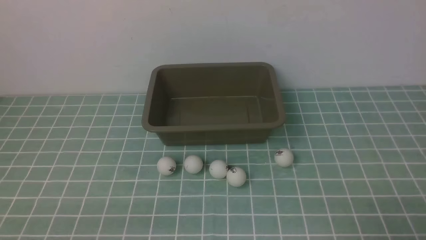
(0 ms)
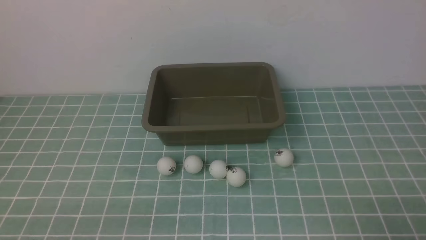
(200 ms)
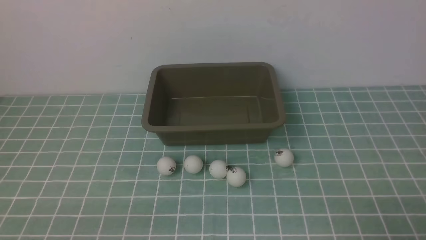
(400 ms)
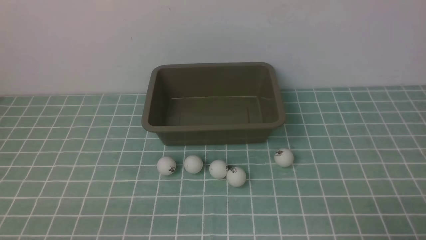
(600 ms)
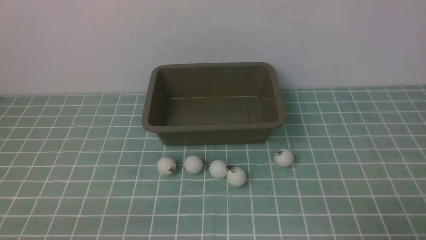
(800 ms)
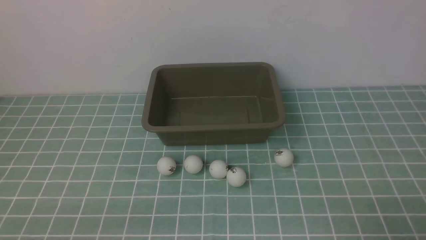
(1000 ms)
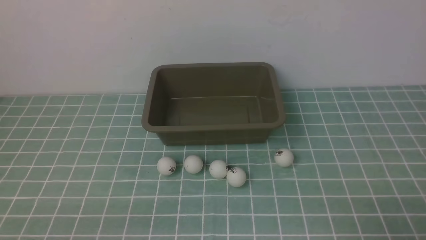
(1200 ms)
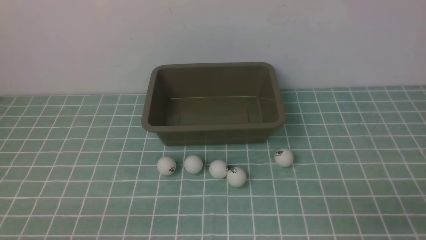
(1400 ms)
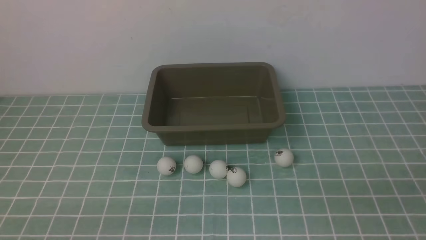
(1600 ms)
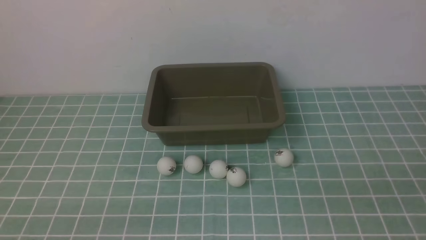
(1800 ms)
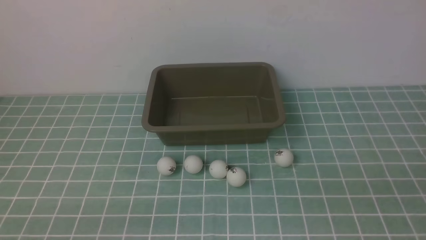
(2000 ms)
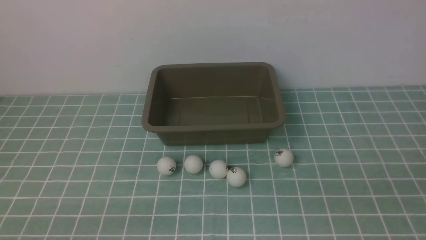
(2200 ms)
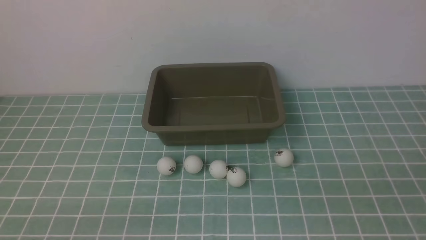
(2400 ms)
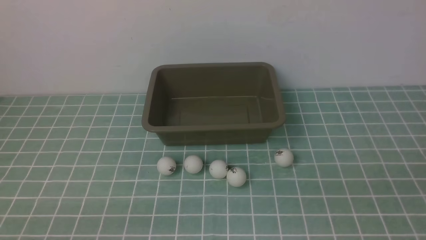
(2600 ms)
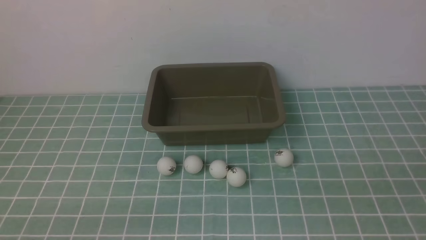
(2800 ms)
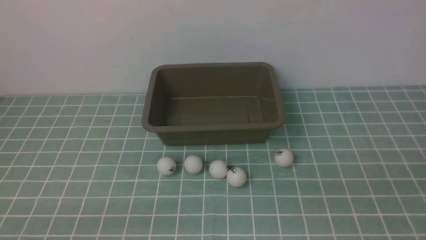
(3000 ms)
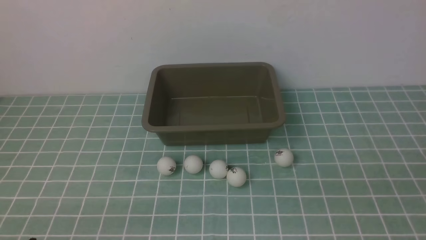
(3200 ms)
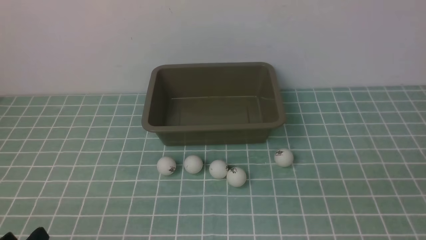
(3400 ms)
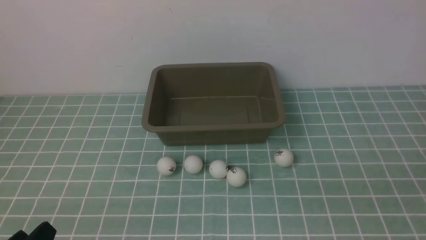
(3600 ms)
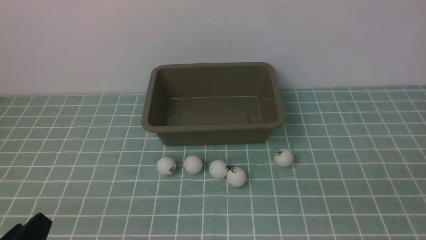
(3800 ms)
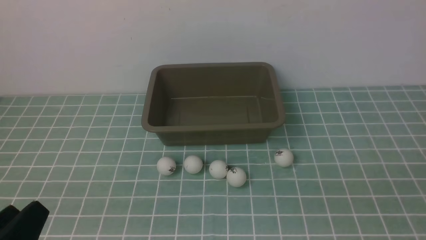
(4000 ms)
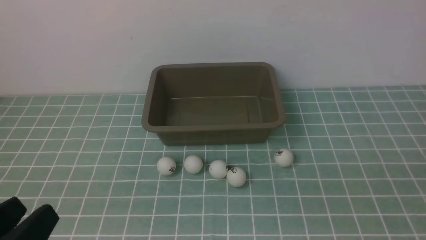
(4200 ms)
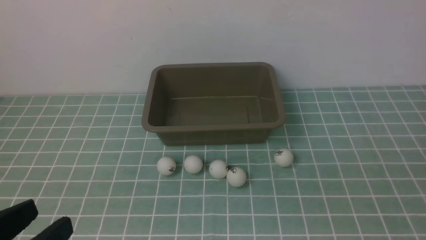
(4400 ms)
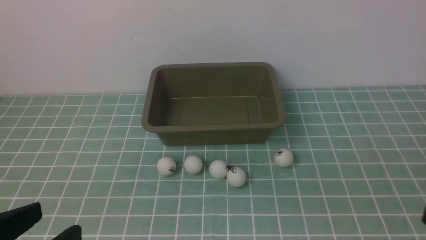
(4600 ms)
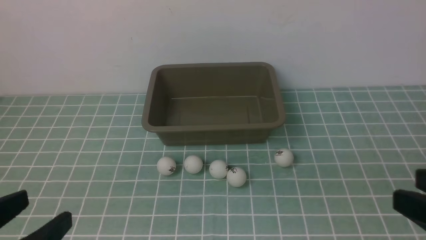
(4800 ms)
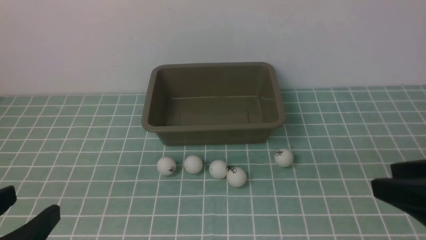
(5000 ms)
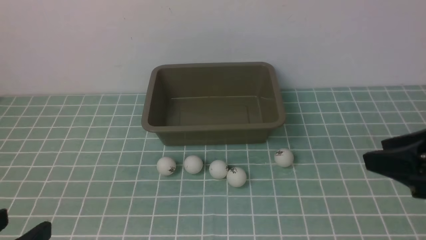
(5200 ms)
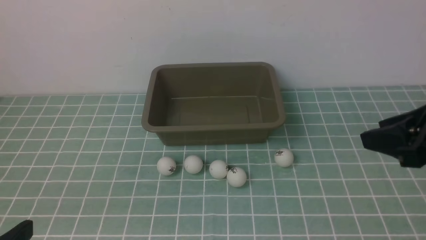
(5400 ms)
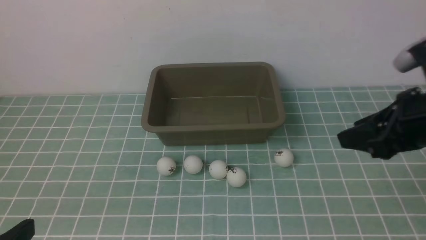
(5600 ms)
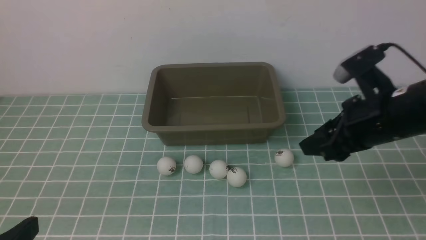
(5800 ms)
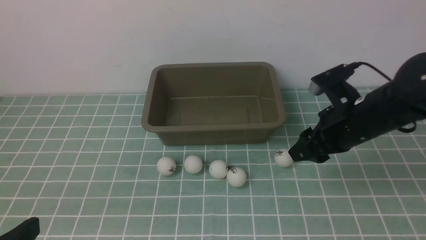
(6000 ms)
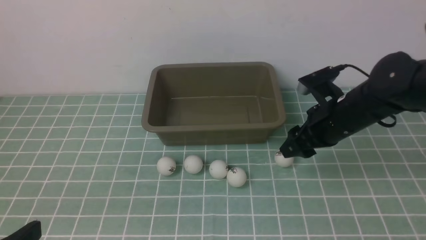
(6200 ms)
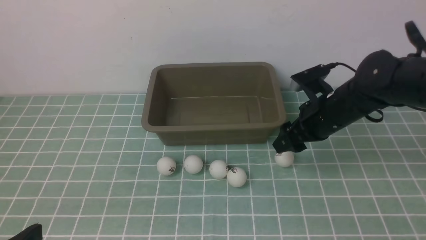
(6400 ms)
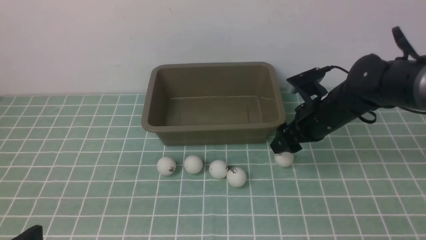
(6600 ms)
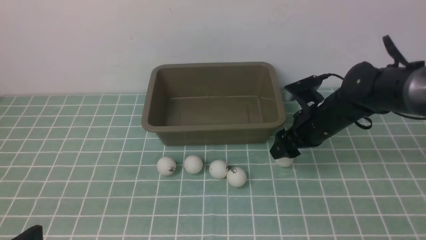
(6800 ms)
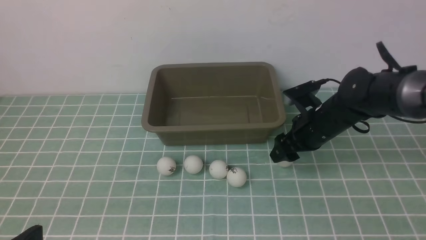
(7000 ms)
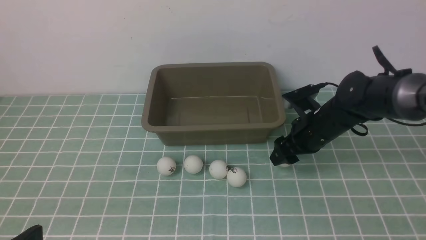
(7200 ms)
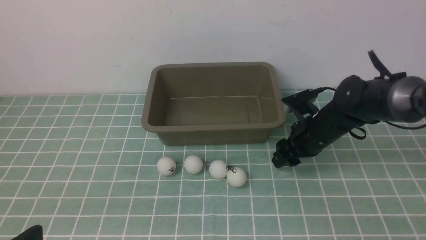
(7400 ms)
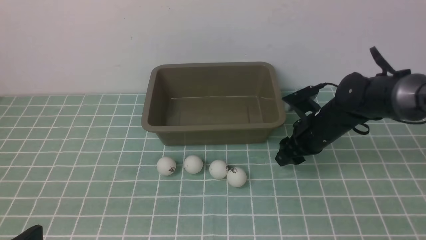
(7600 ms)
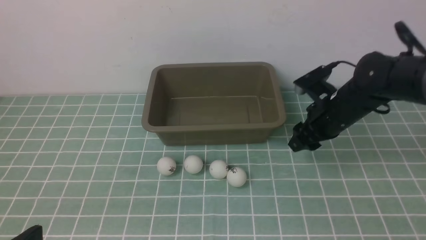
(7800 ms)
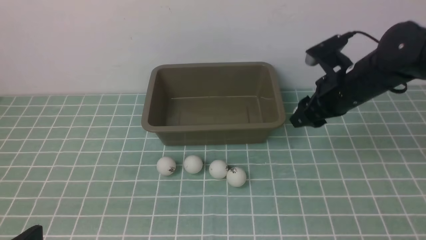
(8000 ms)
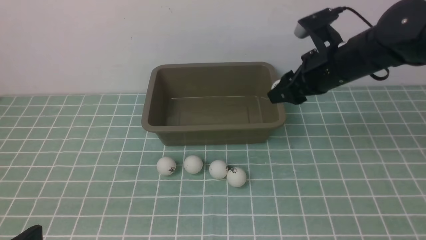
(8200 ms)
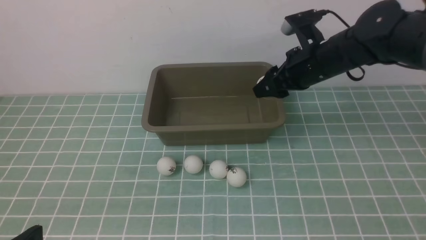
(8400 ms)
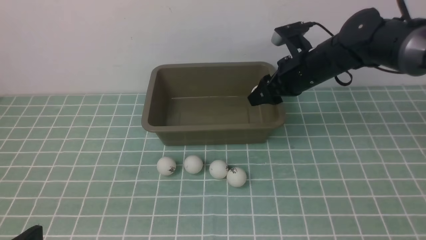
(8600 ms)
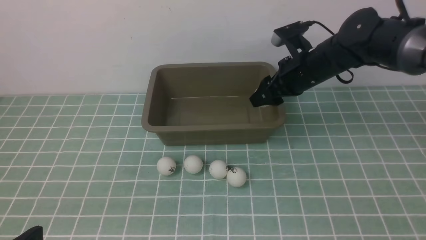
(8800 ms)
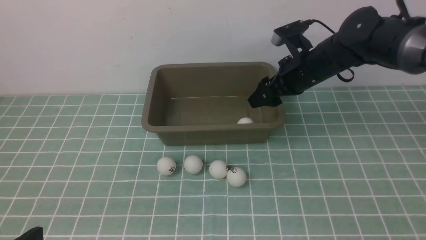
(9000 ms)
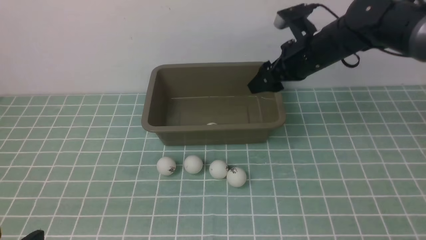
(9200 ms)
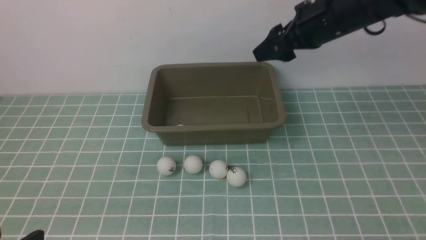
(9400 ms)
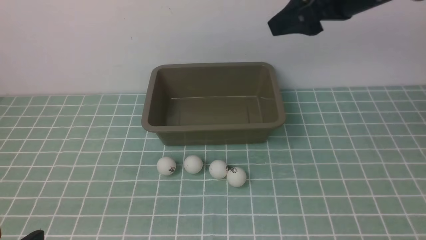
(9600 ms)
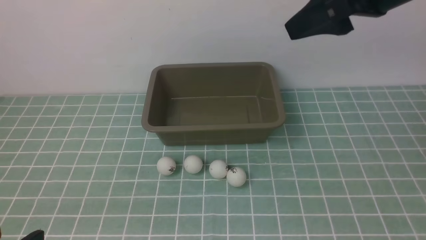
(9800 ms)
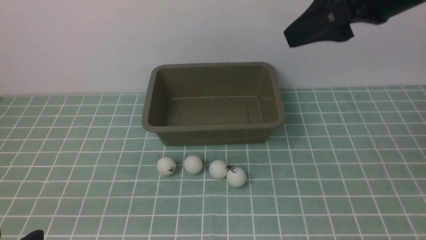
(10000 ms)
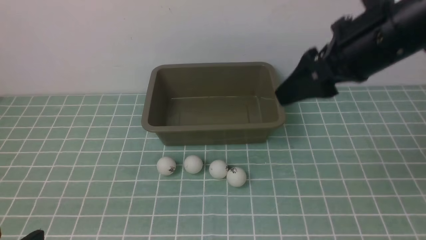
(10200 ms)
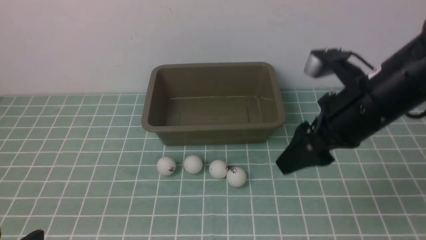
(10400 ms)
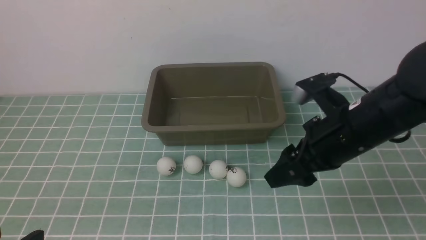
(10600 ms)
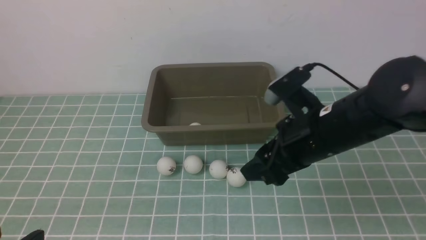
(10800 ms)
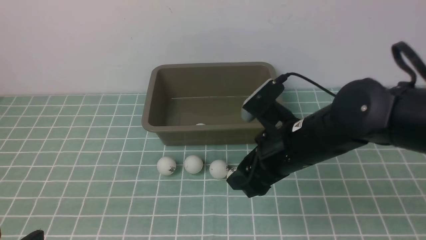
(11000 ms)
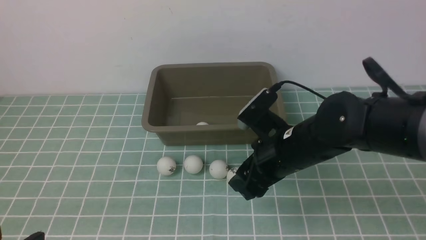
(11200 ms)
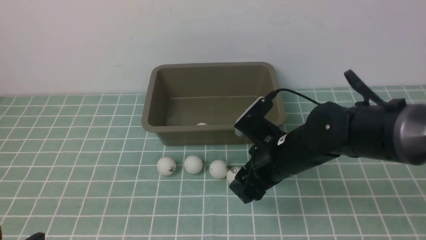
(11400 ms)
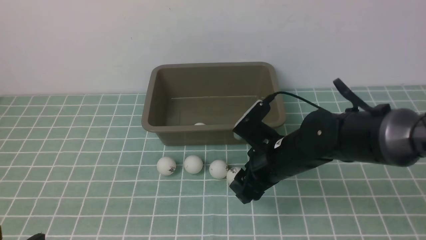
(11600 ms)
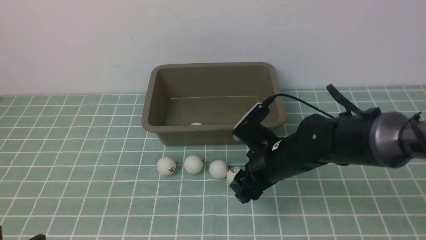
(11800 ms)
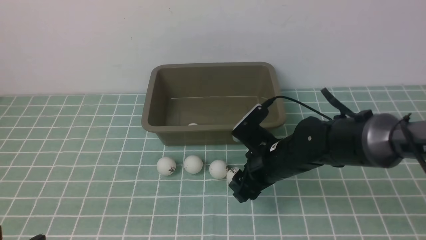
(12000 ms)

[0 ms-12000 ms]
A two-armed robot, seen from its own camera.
Step, 0 ms to 7600 ms: use the right arm to clamp the table tennis ball closest to it.
Step, 7800 ms to 9000 ms: use the right arm to put the table tennis ball into the box.
3000 ms to 4400 ms: The left gripper goes roughly 10 cm upward.
4400 ms to 6000 ms: The right gripper goes about 30 cm forward.
6000 ms to 7600 ms: The right gripper is displaced downward and forward by roughly 10 cm, and opens, then closes again.
7600 ms to 9000 ms: The right gripper heads upward, covering some 10 cm, and opens.
9000 ms to 10400 ms: The right gripper goes some 15 cm backward and upward.
10400 ms to 12000 ms: The right gripper heads downward and to the left, covering some 20 cm.

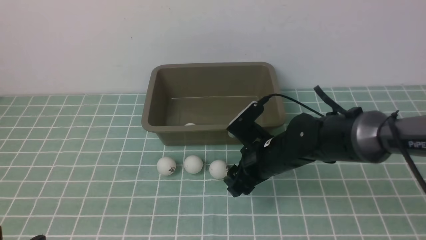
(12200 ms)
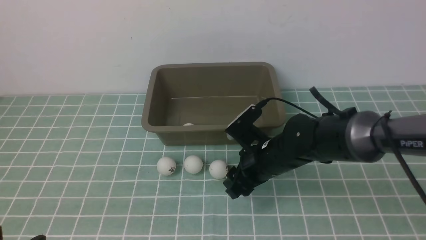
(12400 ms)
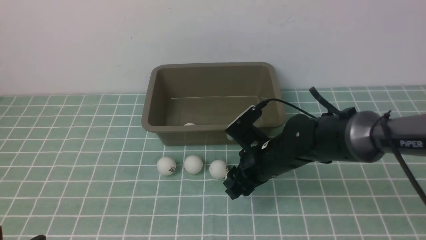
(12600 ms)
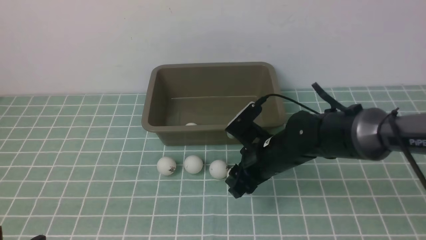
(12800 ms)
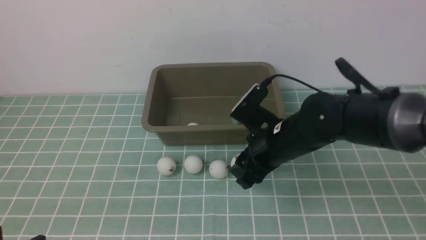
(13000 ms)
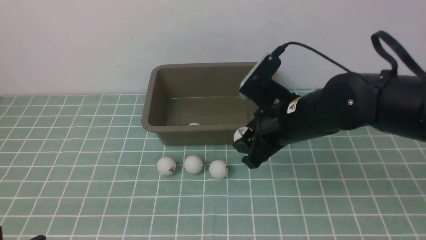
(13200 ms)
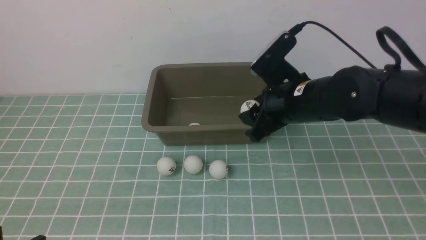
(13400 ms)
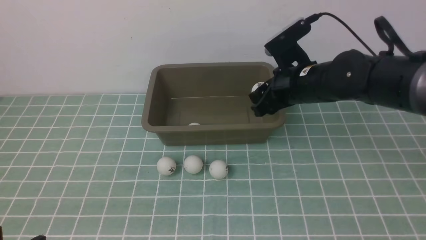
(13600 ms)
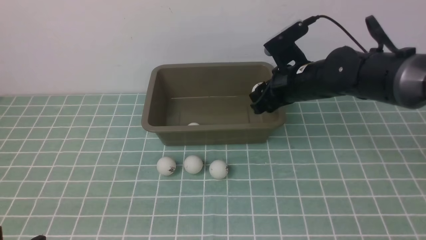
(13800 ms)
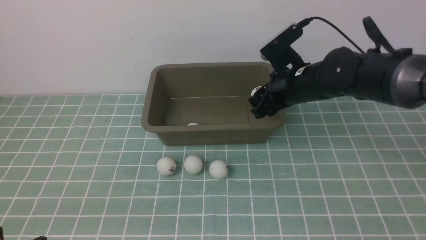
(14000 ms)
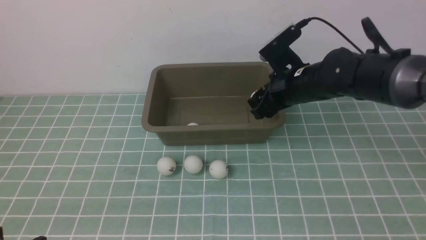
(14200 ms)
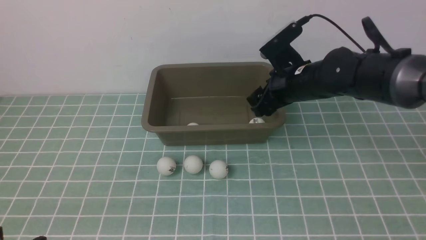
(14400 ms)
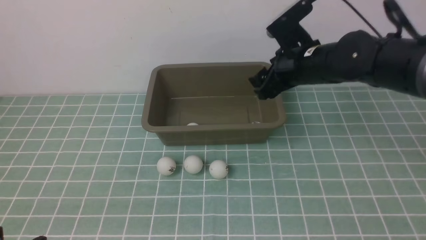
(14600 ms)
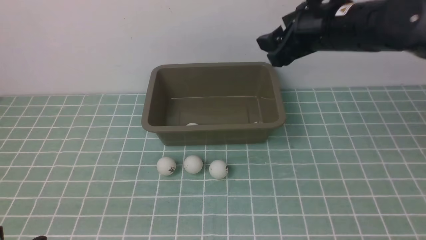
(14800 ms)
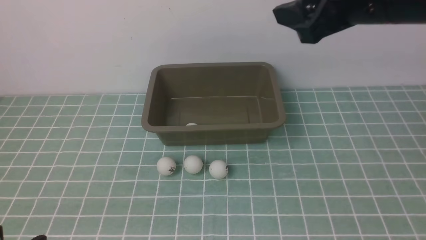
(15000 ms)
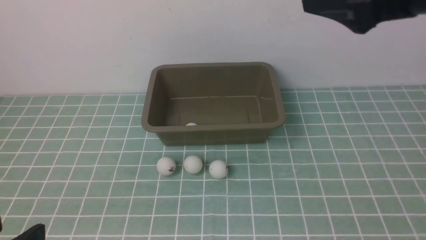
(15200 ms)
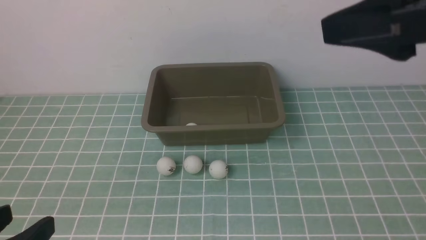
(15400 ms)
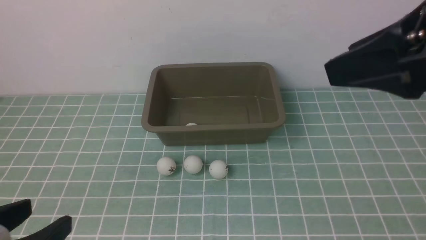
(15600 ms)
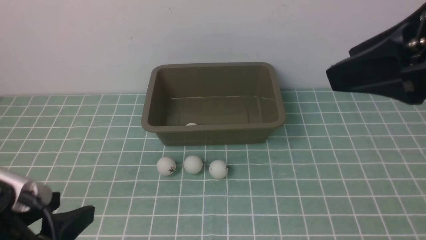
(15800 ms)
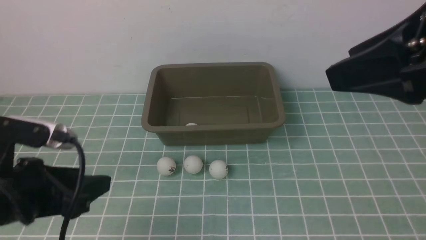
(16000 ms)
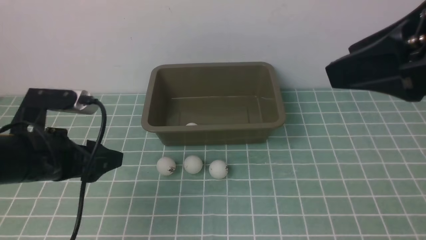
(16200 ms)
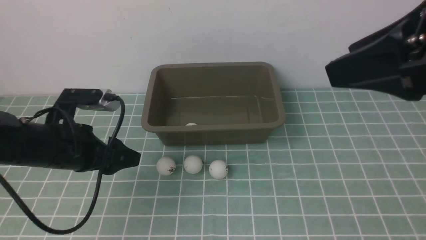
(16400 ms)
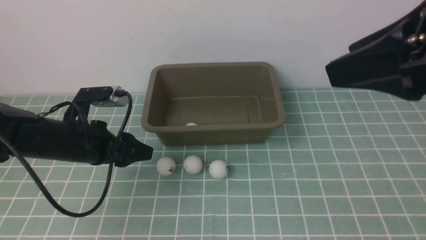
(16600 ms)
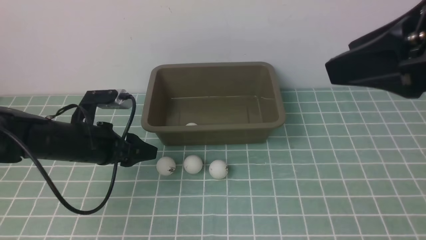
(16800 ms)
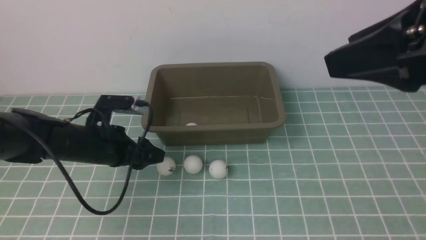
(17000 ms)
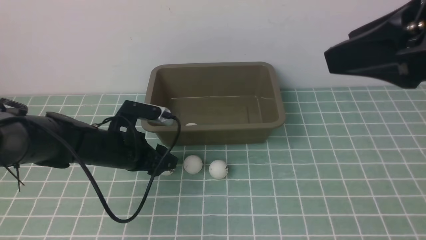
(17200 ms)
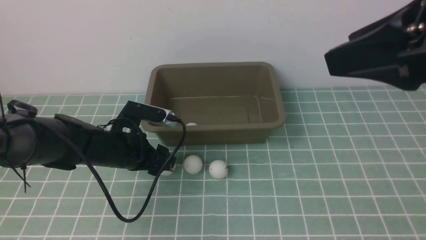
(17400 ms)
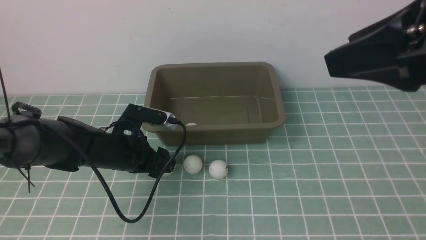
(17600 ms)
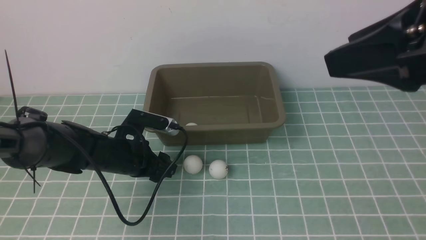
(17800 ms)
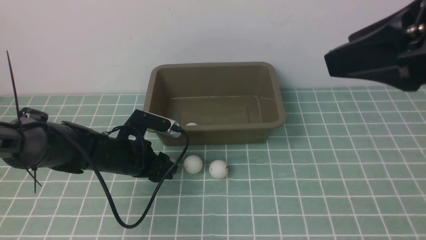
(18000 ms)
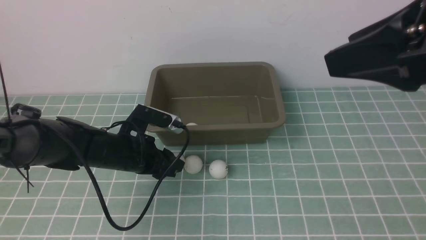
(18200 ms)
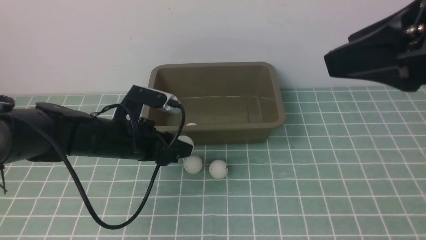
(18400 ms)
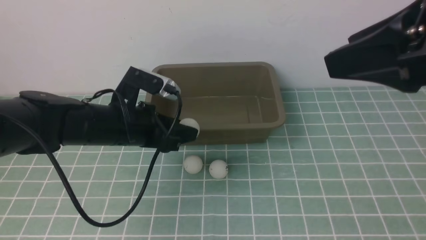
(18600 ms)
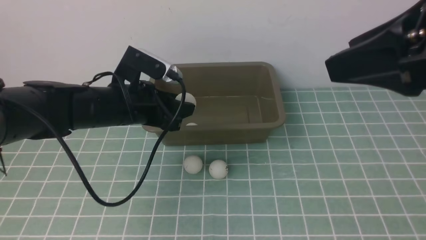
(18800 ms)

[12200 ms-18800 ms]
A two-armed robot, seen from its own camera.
Step, 13000 ms to 14400 ms: use the right arm to put the table tennis ball into the box.
Step, 14600 ms to 18200 ms: use the left arm to clamp the table tennis ball closest to it.
12200 ms to 13800 ms: The right gripper heads upward and forward, covering roughly 10 cm, and closes up.
13800 ms to 15400 ms: The right gripper shifts about 30 cm upward and backward, and opens, then closes again.
15400 ms to 17200 ms: The left gripper travels forward and downward by roughly 30 cm.
17200 ms to 18800 ms: The left gripper is displaced upward by roughly 5 cm.
